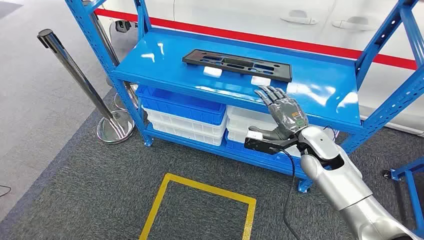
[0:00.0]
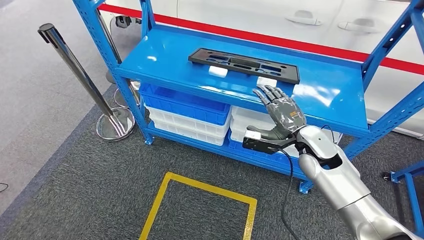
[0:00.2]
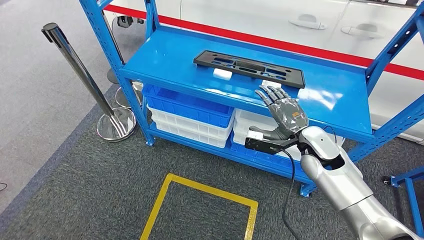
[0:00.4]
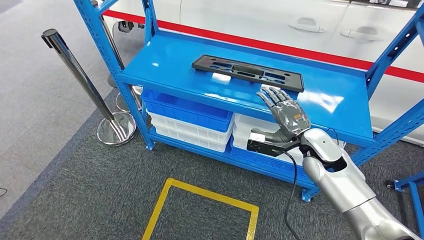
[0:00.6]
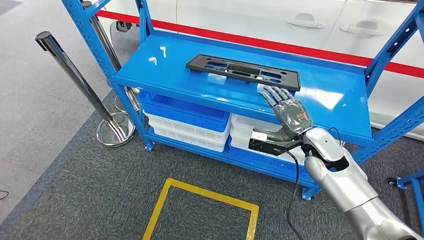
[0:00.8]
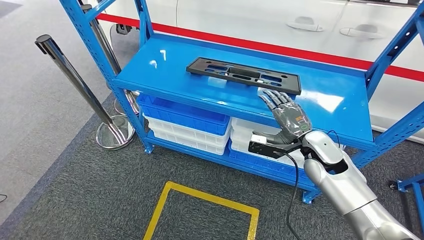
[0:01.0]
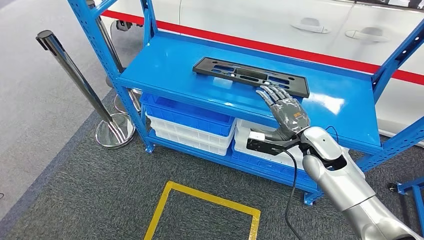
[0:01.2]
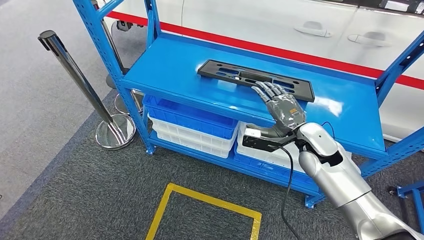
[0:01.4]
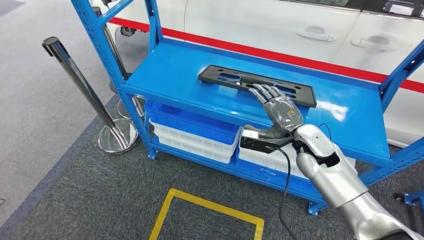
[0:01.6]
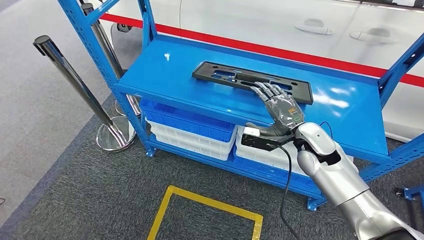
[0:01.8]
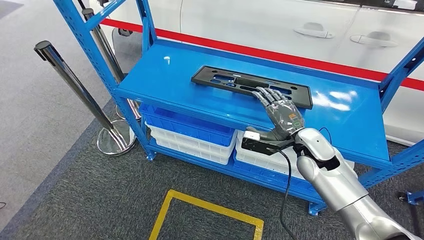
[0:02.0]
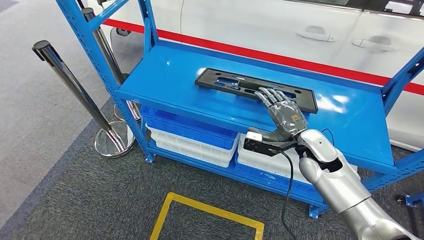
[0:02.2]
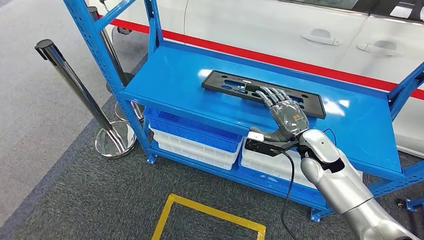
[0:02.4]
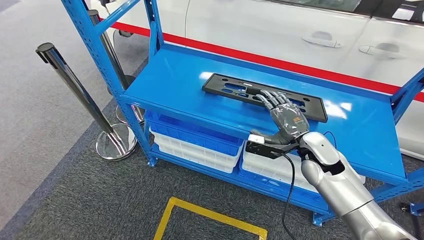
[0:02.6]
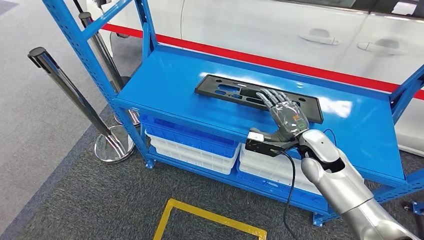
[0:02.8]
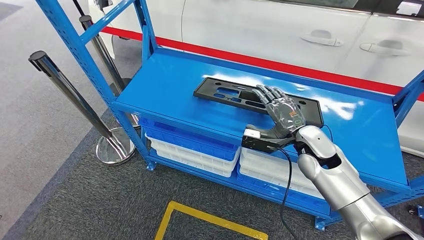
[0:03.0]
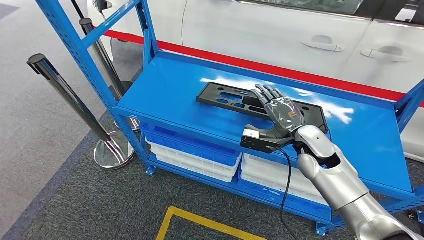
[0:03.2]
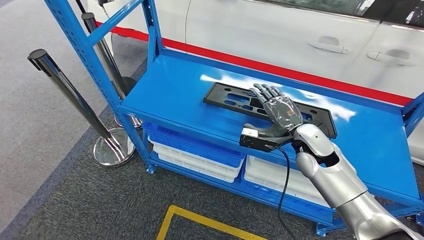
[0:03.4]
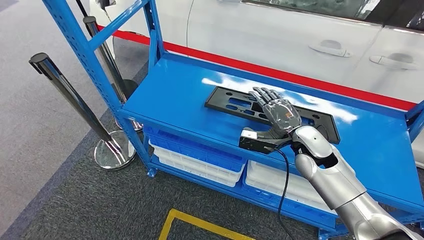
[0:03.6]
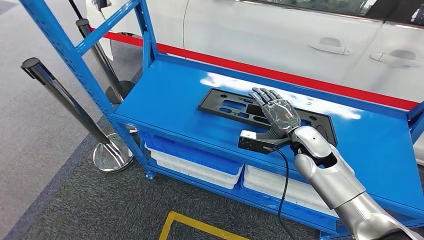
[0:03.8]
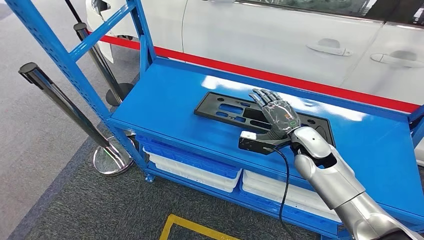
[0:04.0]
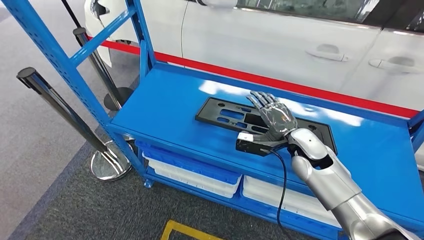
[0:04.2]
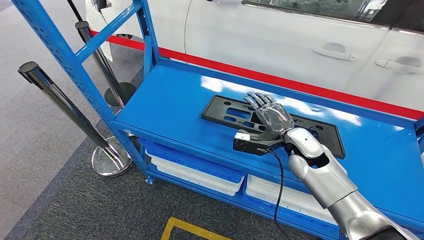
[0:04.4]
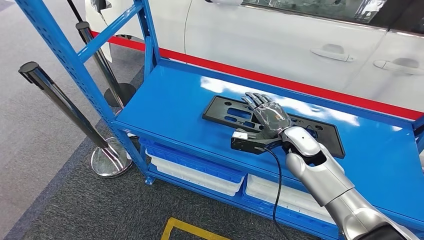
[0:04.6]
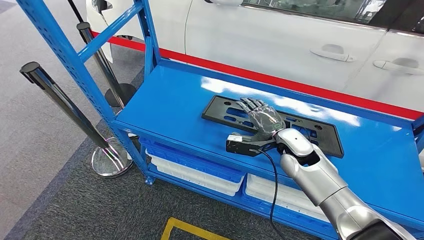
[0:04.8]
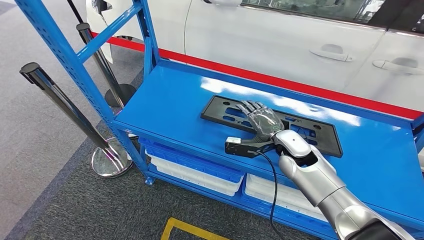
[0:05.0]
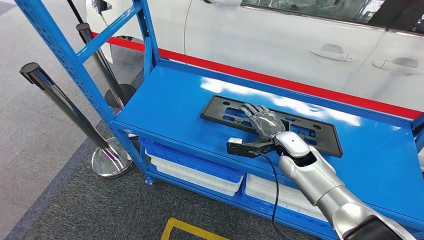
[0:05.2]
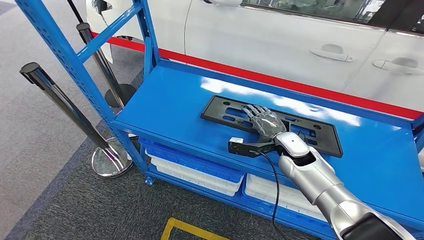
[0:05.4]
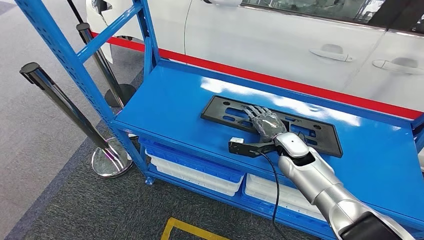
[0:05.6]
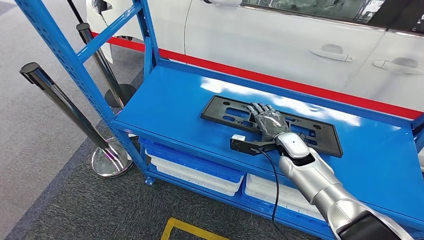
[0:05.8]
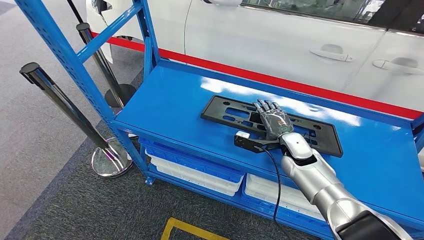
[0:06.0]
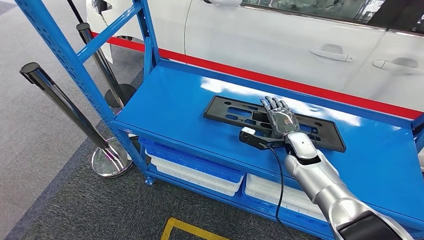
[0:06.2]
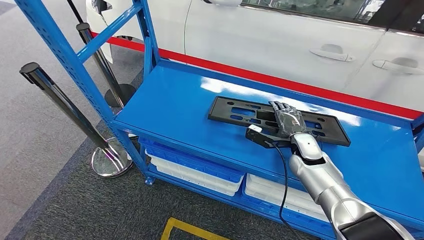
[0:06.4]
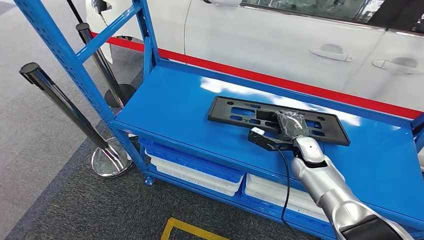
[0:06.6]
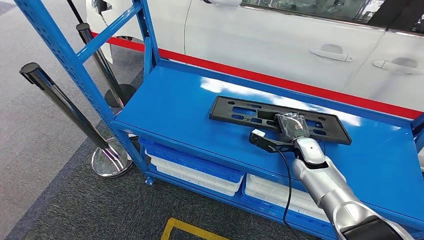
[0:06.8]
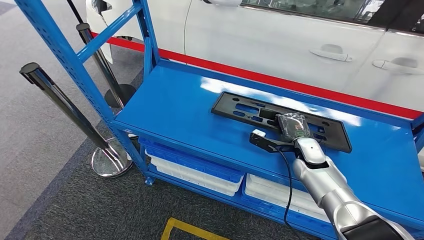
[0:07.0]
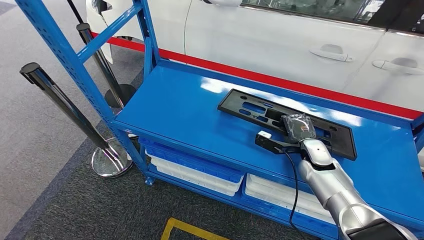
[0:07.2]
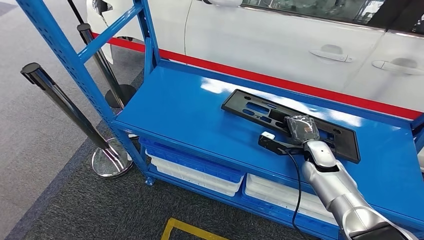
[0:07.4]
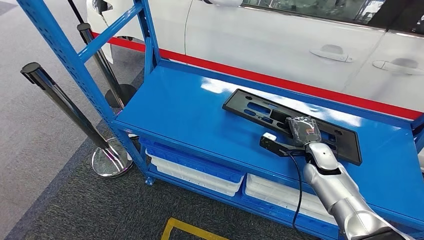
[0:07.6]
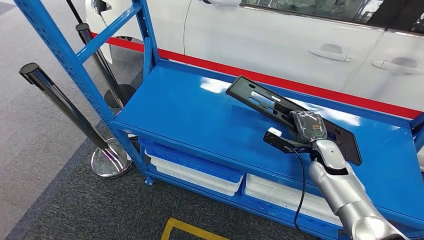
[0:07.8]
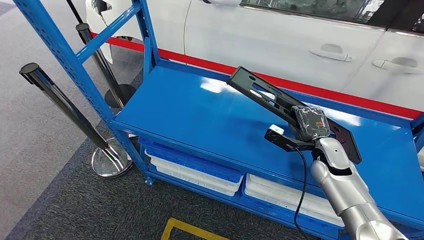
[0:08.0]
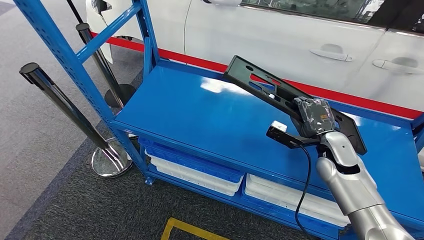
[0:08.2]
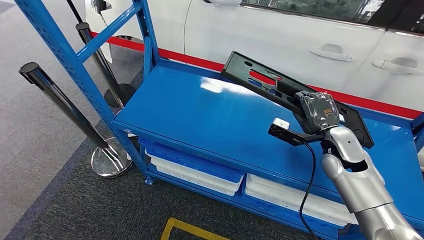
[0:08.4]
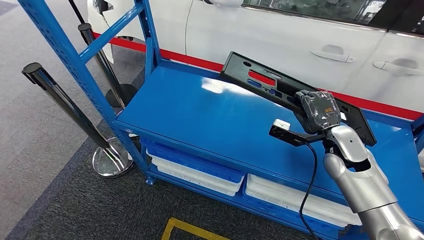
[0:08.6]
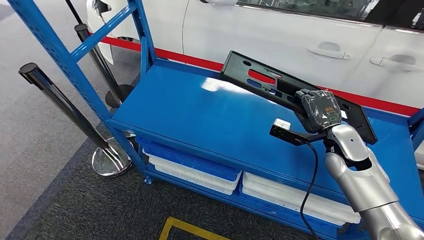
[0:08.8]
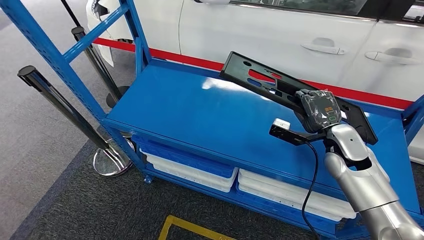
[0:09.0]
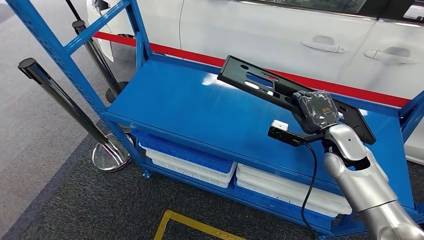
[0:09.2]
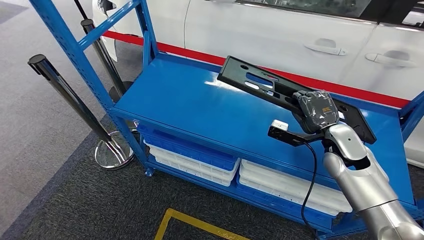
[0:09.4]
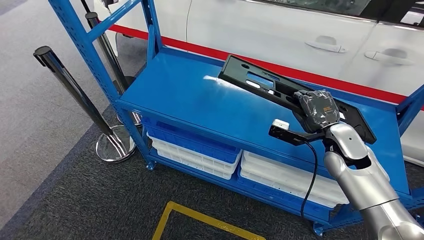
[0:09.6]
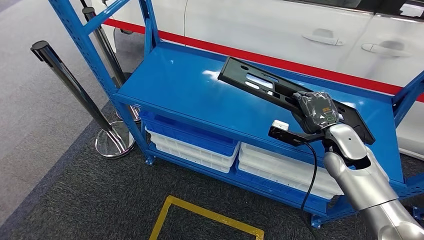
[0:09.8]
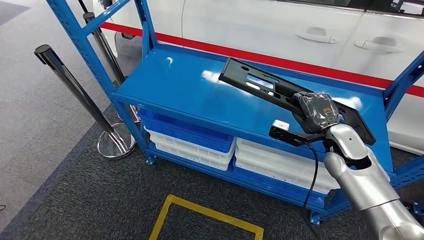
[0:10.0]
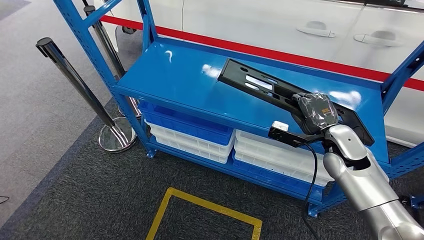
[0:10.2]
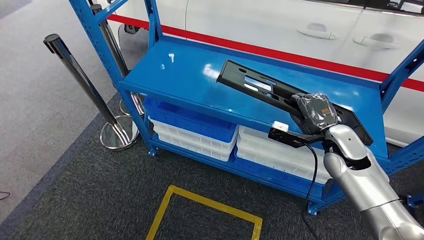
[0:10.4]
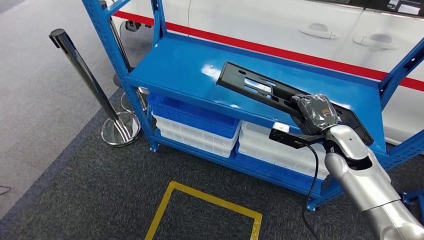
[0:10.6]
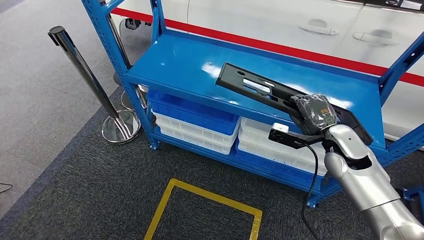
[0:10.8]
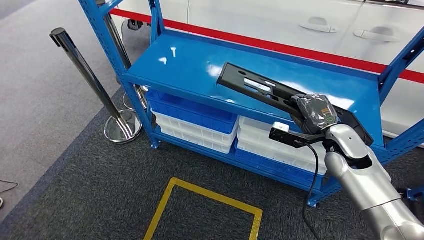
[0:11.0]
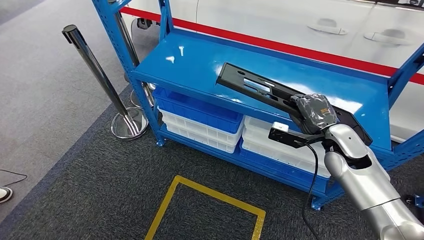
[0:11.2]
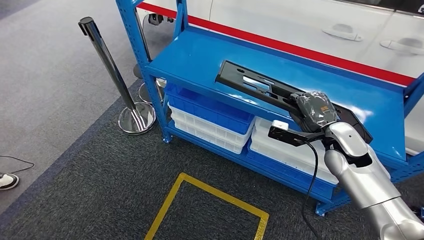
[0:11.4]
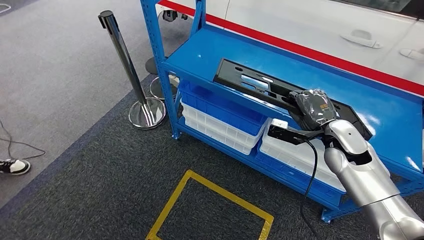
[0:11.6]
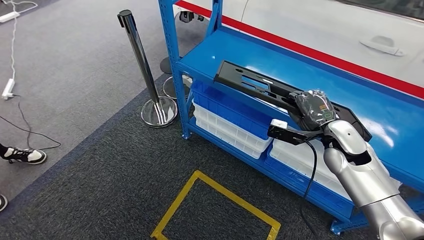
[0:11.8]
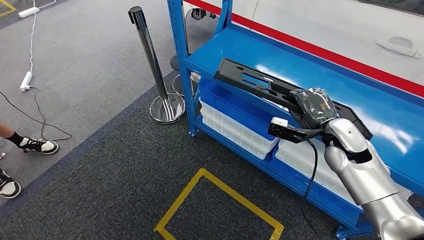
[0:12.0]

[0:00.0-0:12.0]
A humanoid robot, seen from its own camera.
Step, 0:00.0 to 0:10.4: Pick up the large material from the shelf.
0:04.4 to 0:06.0: The right hand is displaced downward by roughly 5 cm.
0:06.0 to 0:07.6: The right hand shifts roughly 10 cm to the right.

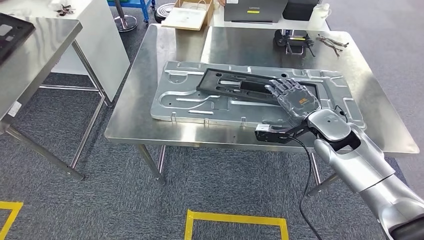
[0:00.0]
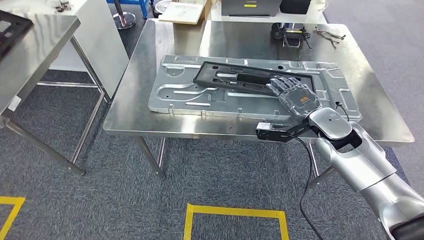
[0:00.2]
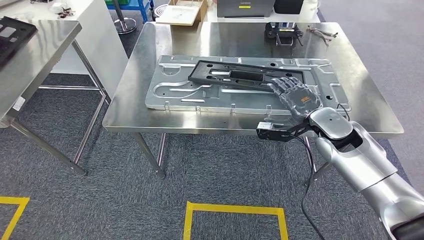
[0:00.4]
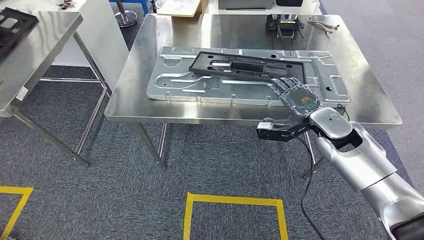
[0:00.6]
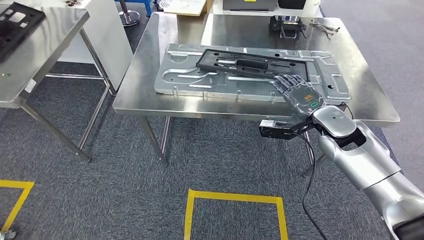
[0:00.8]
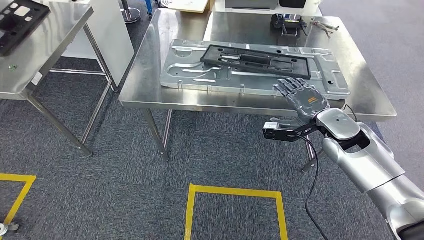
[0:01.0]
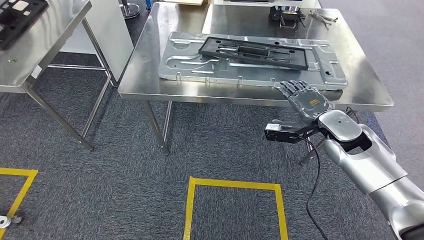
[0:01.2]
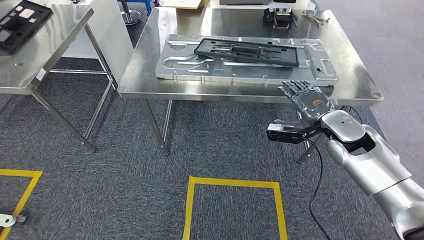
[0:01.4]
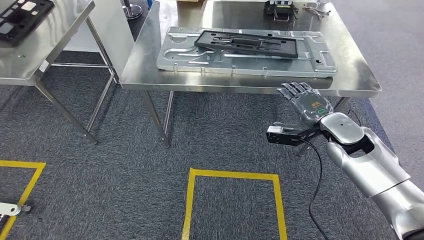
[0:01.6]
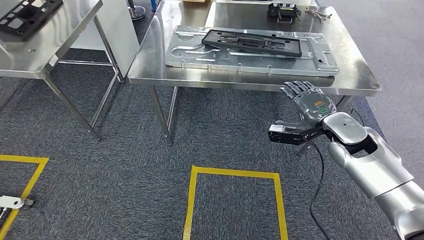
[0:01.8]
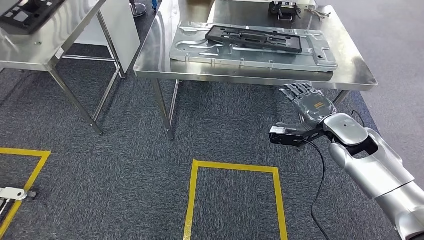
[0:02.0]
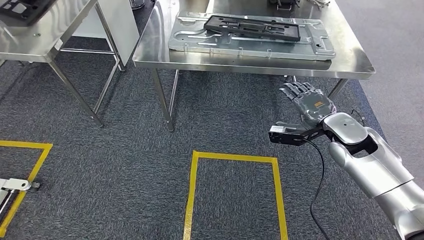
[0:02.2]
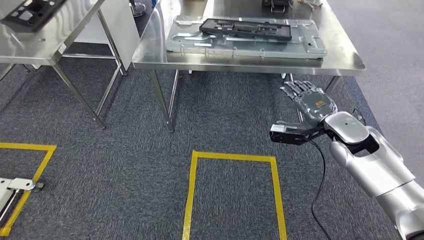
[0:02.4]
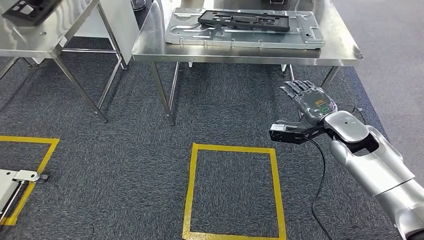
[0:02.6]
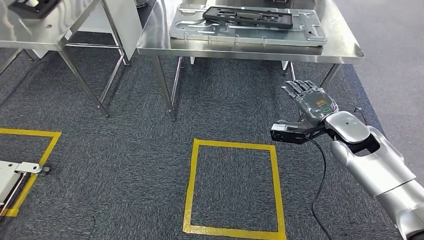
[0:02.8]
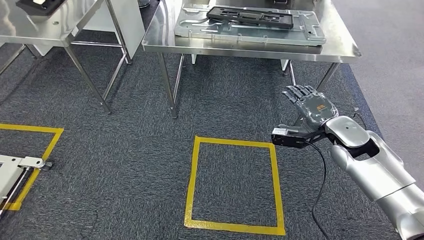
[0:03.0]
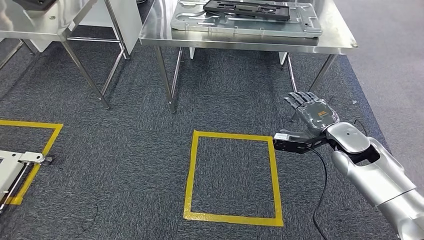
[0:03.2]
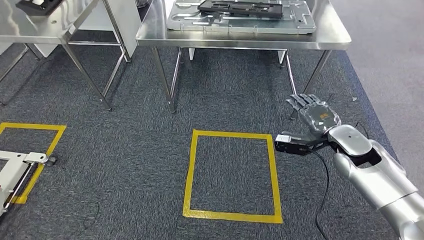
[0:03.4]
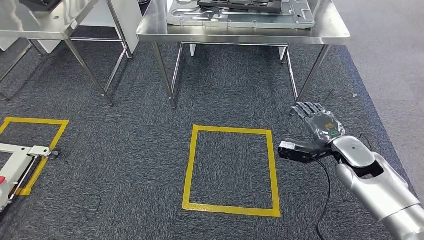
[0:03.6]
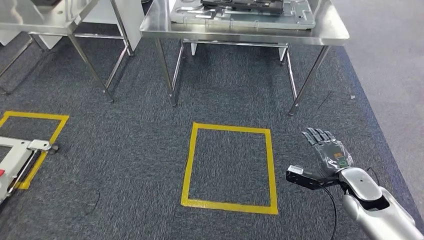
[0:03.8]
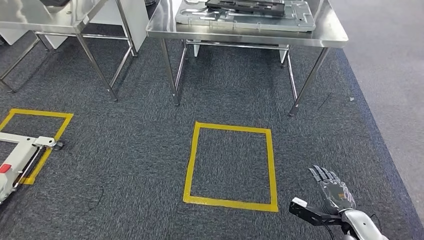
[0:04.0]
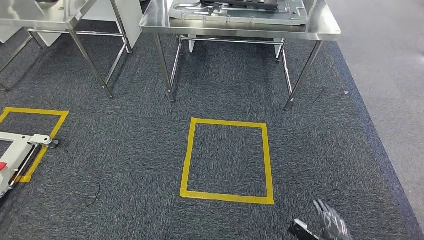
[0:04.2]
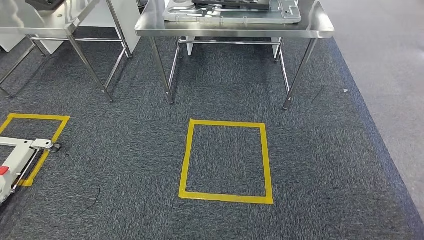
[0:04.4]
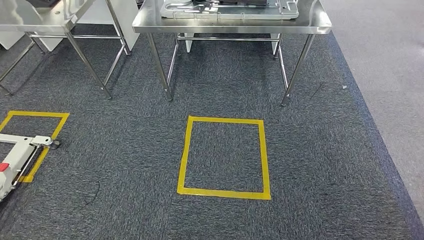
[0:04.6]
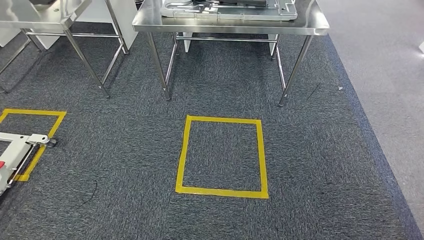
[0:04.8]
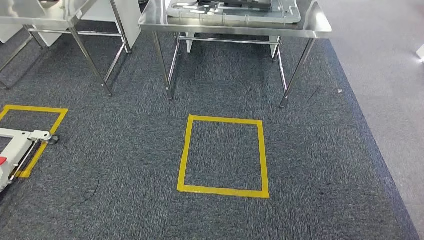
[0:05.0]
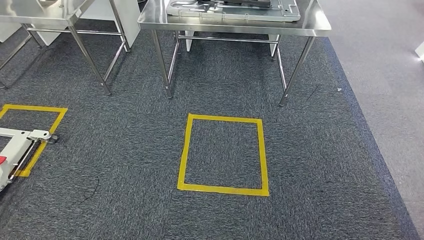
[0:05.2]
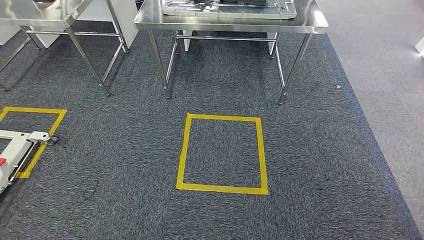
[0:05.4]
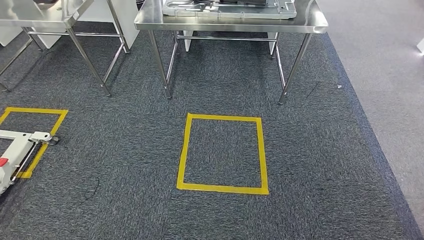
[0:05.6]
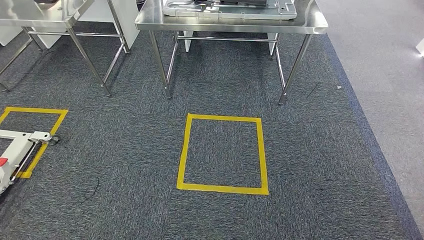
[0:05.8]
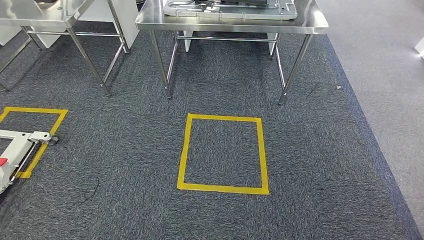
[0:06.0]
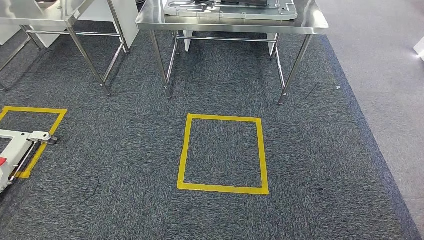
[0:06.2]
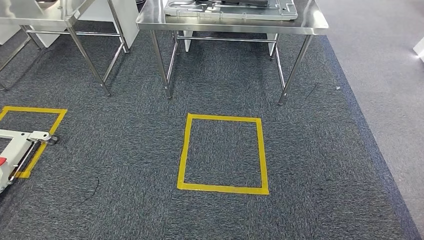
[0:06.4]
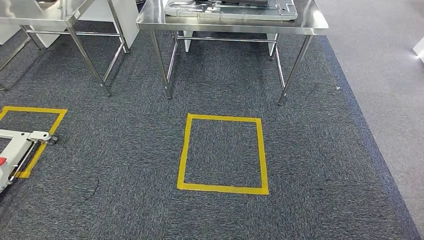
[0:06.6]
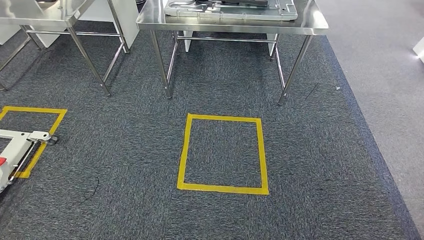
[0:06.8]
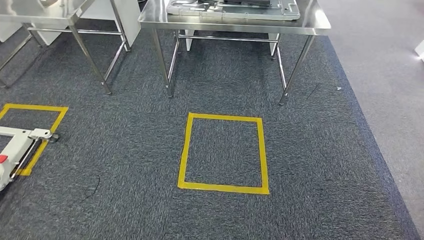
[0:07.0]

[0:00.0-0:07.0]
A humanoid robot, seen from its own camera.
Step, 0:02.2 to 0:07.0: Return to the initial position at the shelf.
0:04.2 to 0:05.6: The right hand goes some 25 cm backward, to the left and downward.
0:05.6 to 0:07.0: The hands make only small movements.
